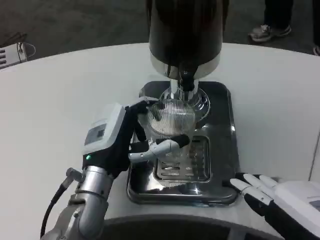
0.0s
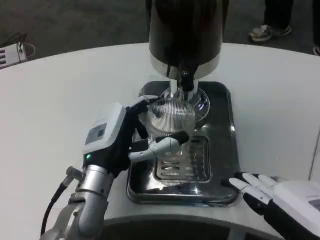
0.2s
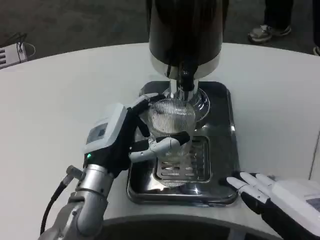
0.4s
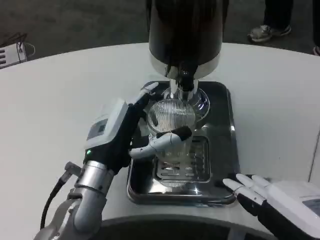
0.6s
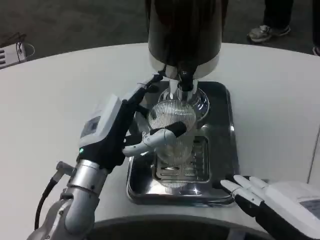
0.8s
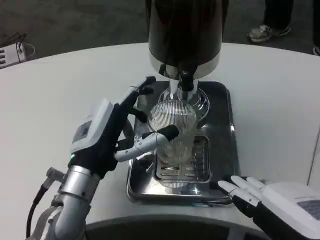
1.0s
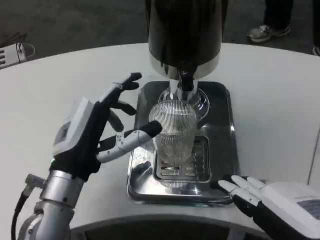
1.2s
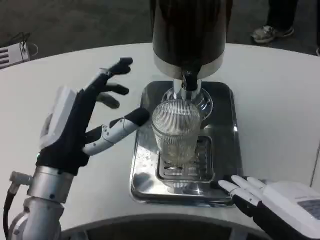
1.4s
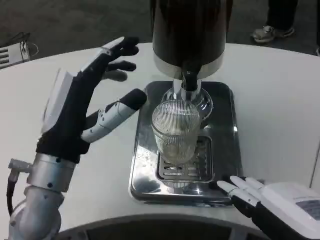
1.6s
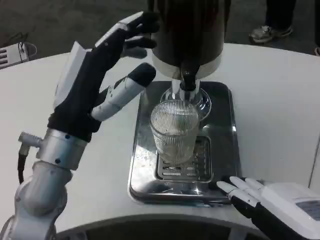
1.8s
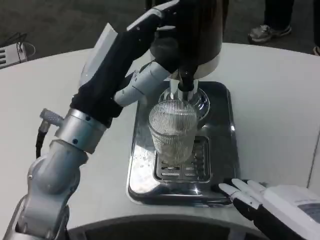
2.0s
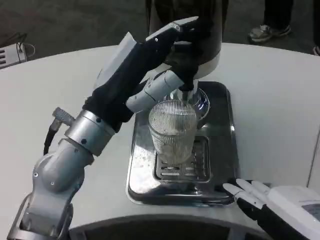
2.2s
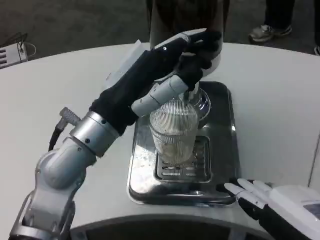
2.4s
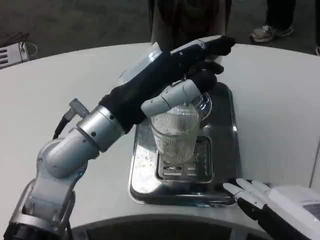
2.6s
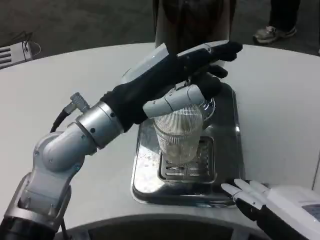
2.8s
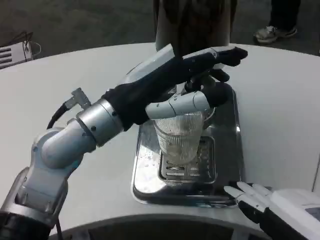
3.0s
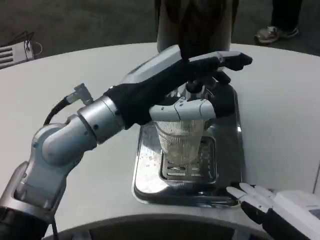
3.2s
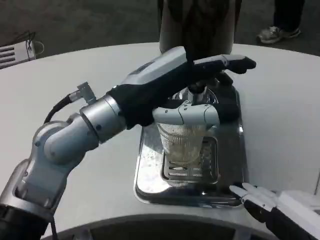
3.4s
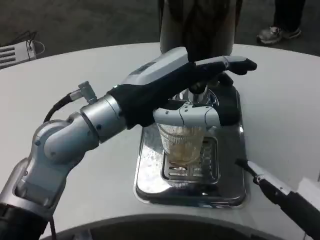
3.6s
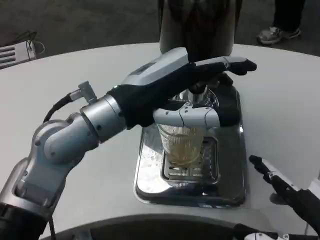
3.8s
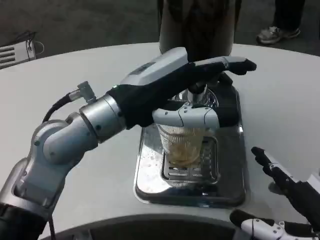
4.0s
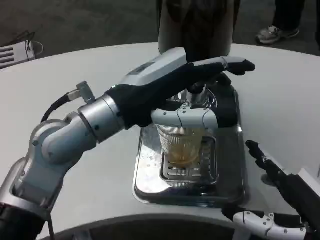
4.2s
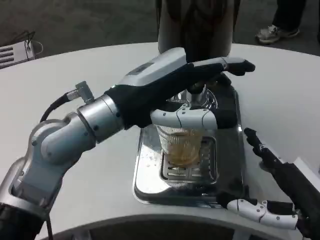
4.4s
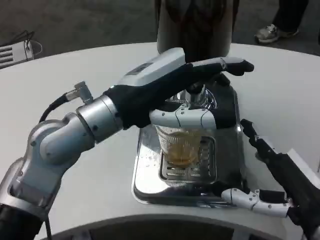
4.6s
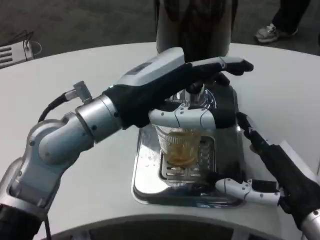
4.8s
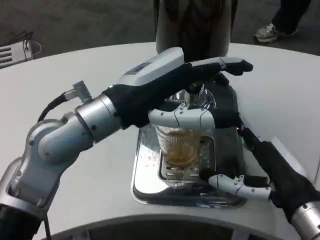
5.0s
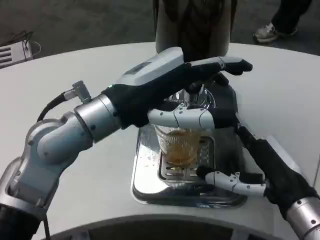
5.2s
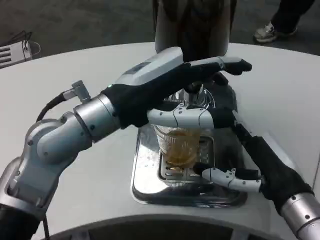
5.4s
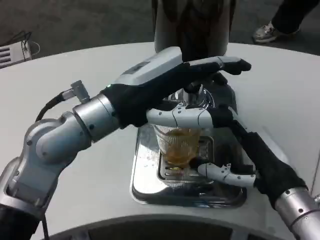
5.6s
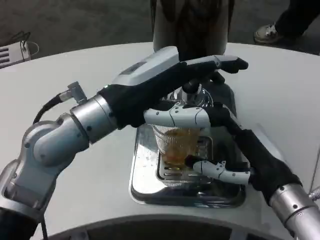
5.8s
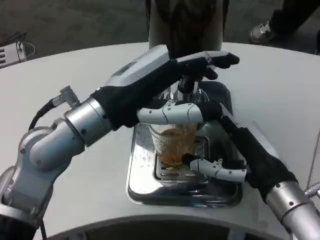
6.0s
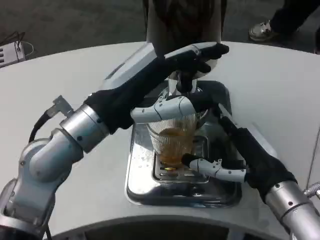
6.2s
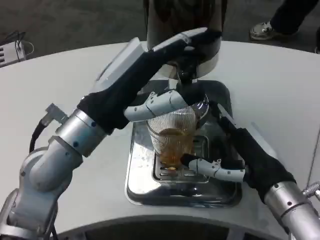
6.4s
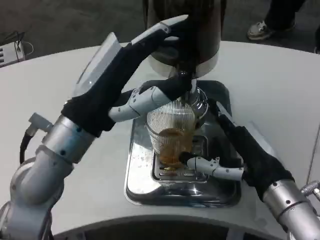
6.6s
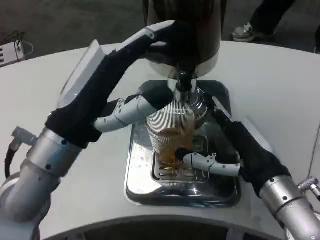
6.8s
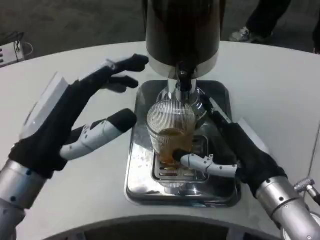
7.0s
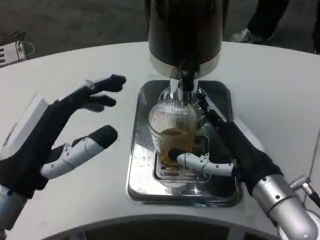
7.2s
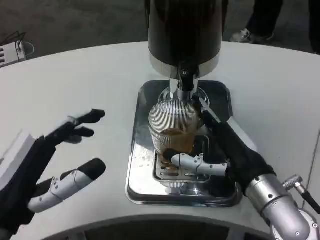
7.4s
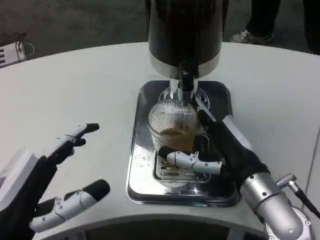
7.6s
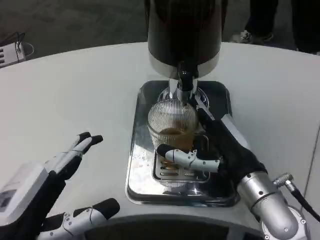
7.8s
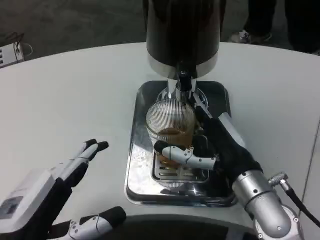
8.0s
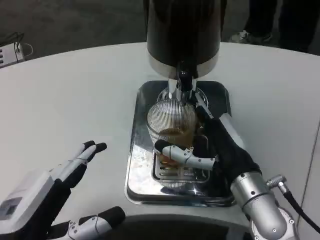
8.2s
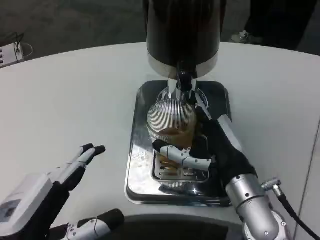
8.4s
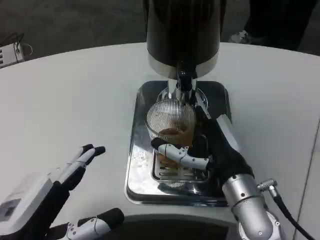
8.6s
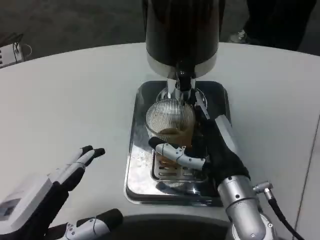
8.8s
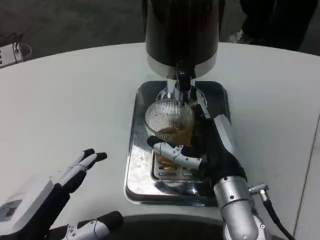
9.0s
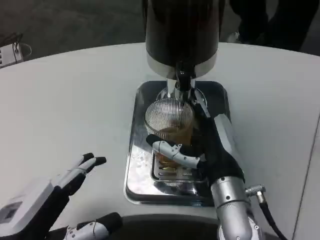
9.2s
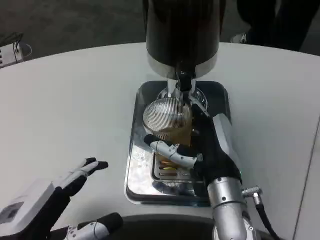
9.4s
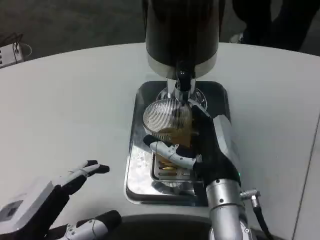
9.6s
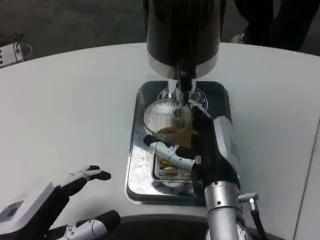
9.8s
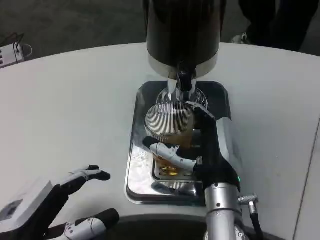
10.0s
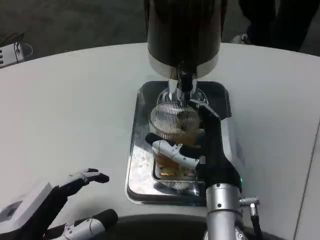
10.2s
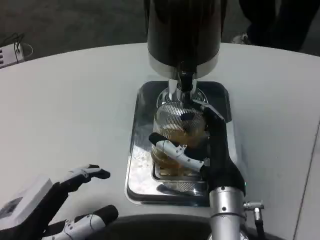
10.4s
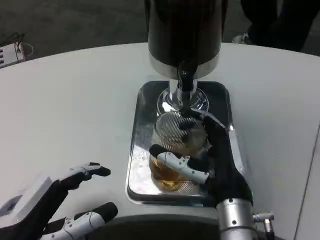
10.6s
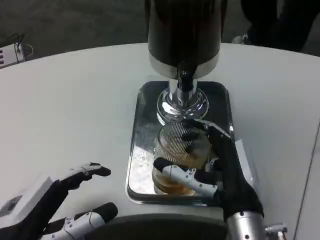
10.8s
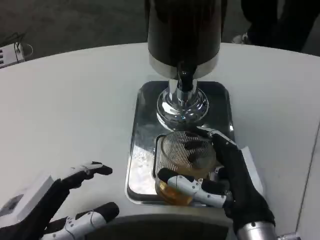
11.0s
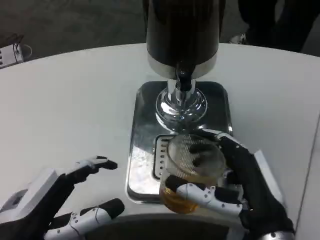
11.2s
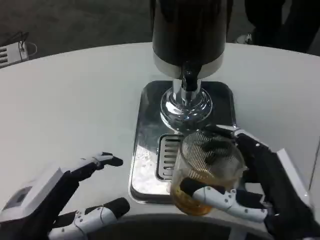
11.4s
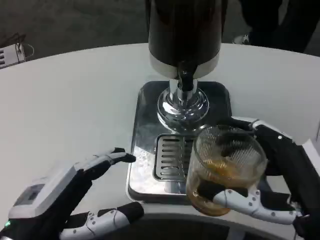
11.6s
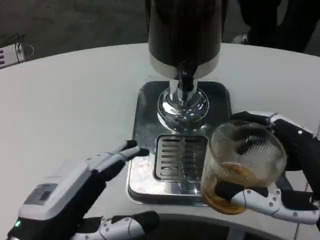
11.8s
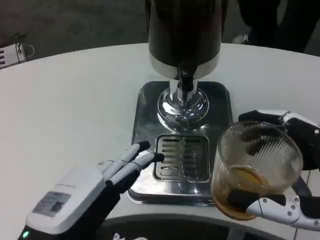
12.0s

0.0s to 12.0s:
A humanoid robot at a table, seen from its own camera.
Task of the whole recording: Grasp the cup under the faucet to collect the drink, then remove the cup.
0.0s to 1.6s: The left hand travels upward by about 5 cm.
1.6s to 3.0s: The left hand heads upward, covering some 5 cm.
3.0s to 4.4s: The right hand moves forward and downward, some 10 cm.
4.4s to 6.0s: The right hand moves forward, approximately 10 cm.
6.0s to 7.6s: The left hand is displaced backward, downward and to the left by some 20 cm.
7.6s to 9.0s: The right hand moves to the left, approximately 5 cm.
9.0s to 10.4s: The hands move only a little.
10.4s to 12.0s: The right hand shifts approximately 20 cm backward and to the right. Meanwhile the left hand ends up roughly 5 cm from where it was.

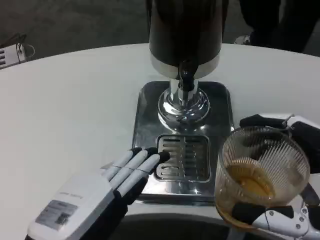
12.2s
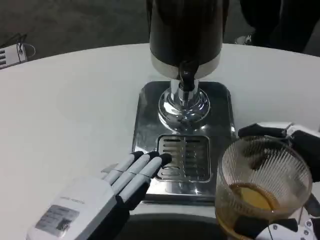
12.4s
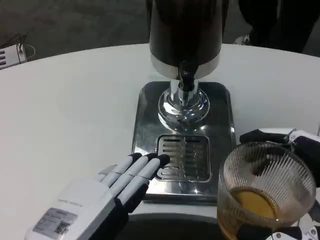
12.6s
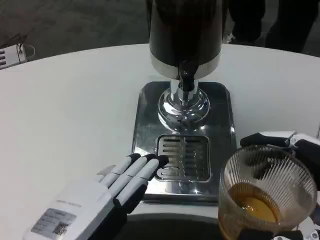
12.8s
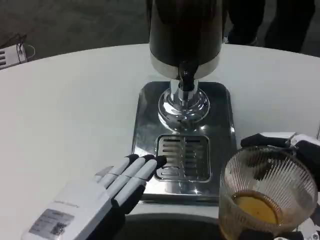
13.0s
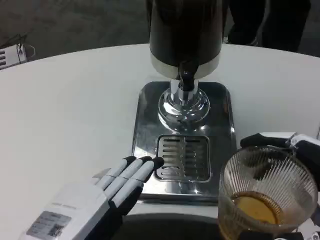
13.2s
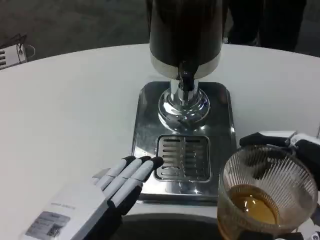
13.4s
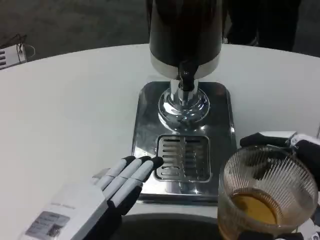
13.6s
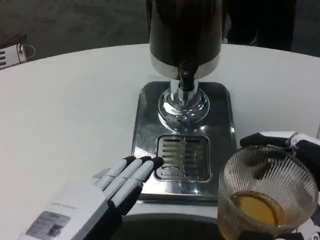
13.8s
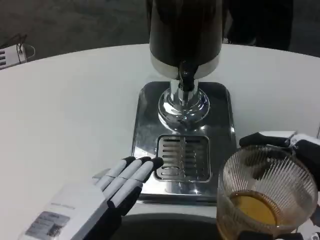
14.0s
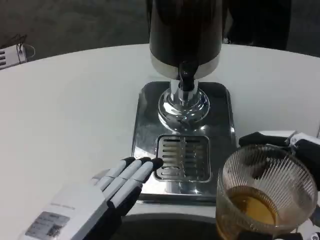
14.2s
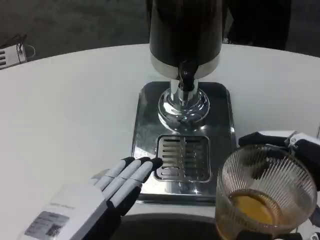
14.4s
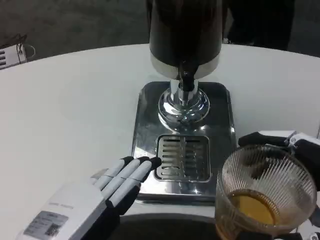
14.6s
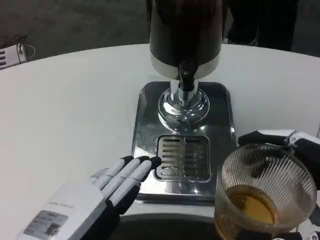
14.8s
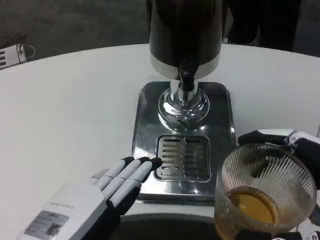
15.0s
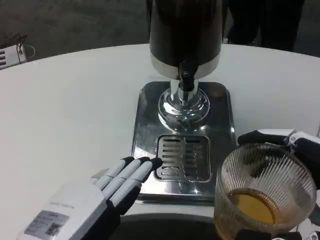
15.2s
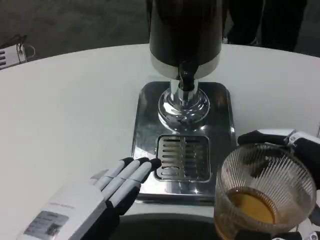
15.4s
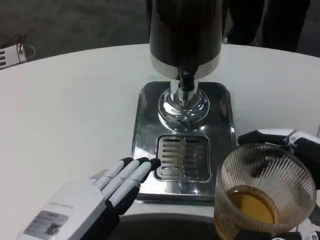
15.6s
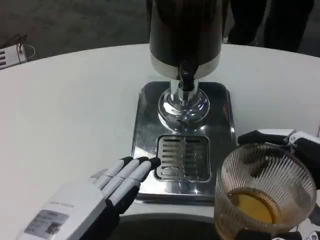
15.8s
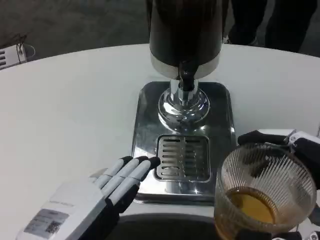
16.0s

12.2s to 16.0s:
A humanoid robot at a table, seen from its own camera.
Task of the whole recording: Grasp the cup under the faucet to collect the drink, then remove the cup.
12.2s to 13.4s: The hands make only small movements.
13.4s to 16.0s: Both hands stay put.

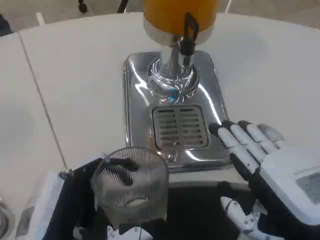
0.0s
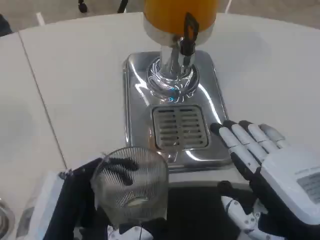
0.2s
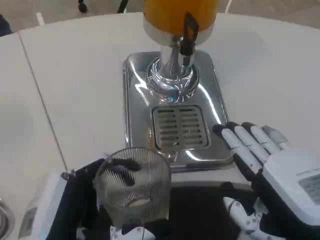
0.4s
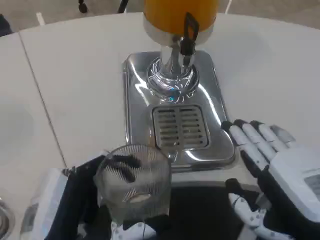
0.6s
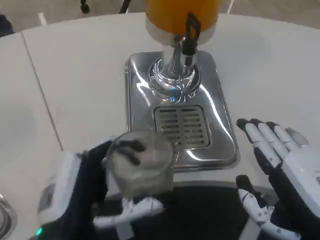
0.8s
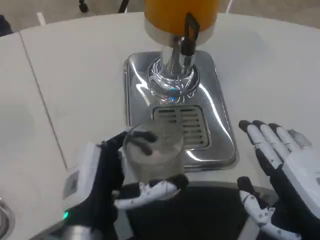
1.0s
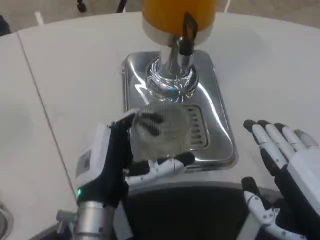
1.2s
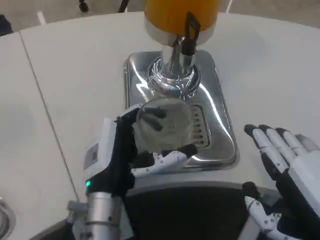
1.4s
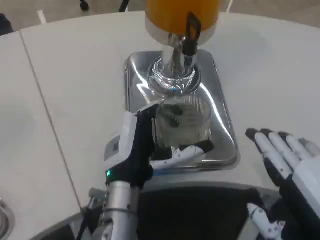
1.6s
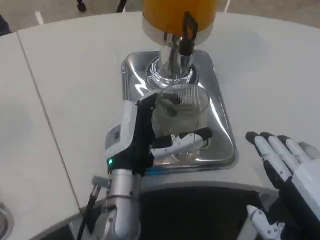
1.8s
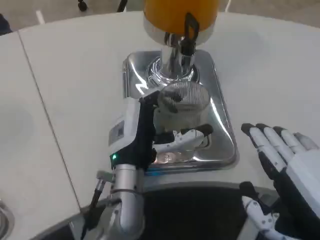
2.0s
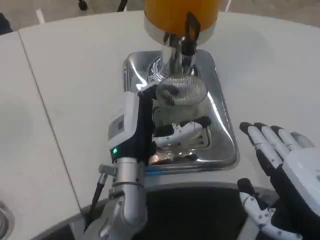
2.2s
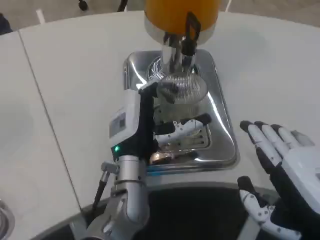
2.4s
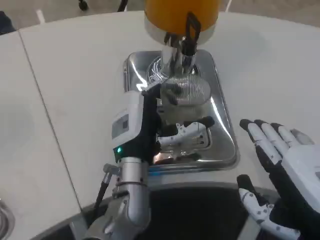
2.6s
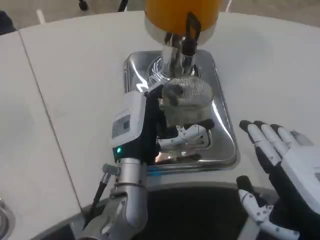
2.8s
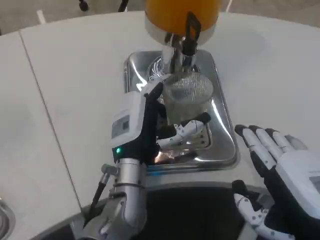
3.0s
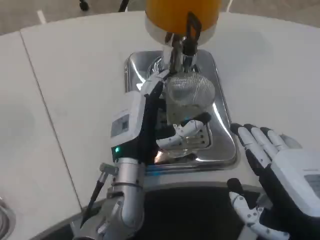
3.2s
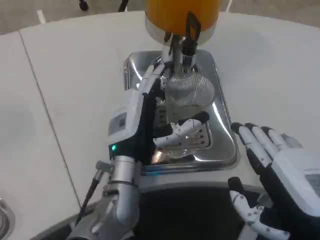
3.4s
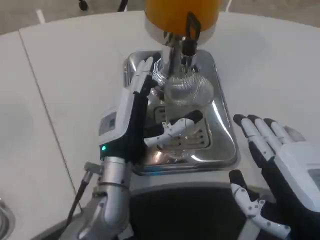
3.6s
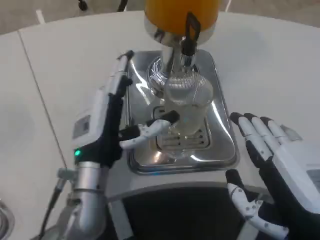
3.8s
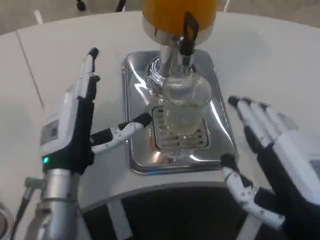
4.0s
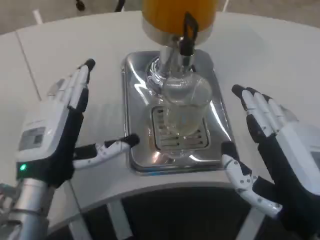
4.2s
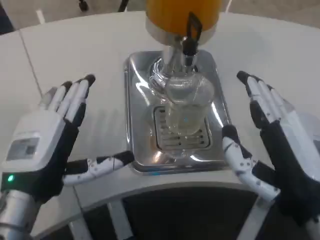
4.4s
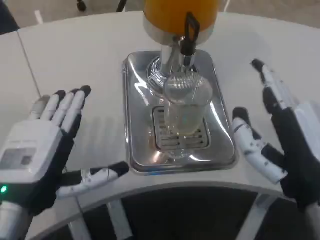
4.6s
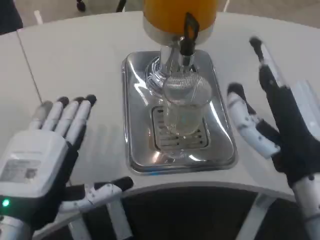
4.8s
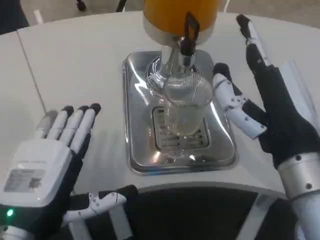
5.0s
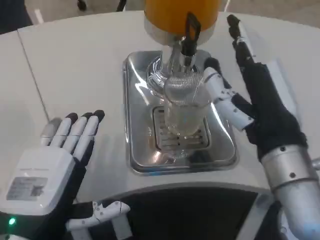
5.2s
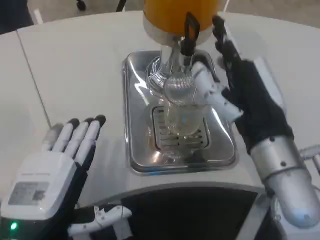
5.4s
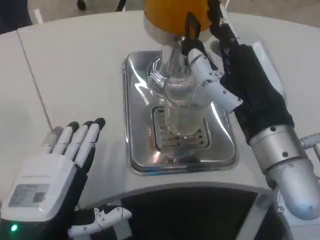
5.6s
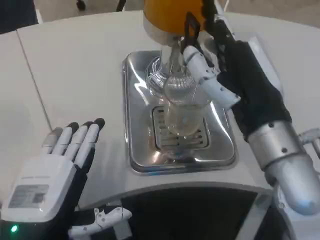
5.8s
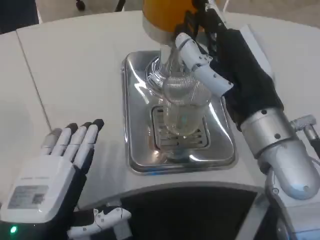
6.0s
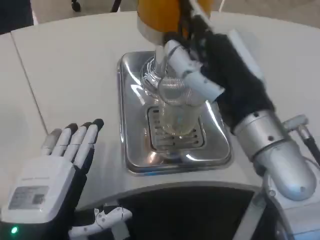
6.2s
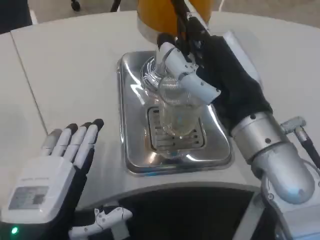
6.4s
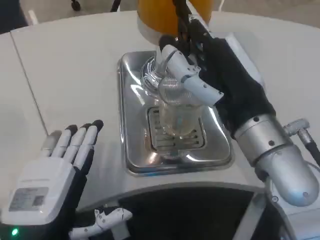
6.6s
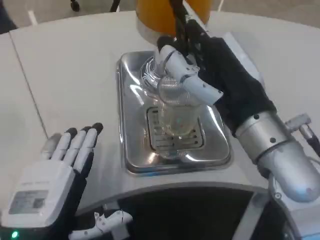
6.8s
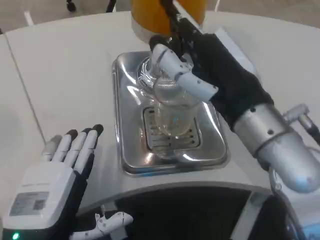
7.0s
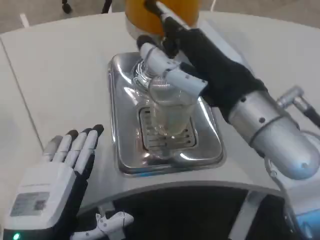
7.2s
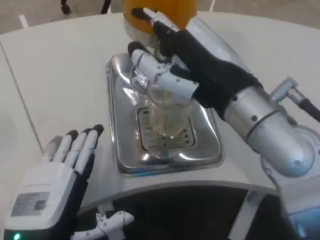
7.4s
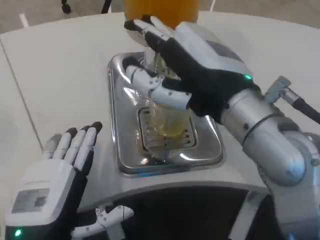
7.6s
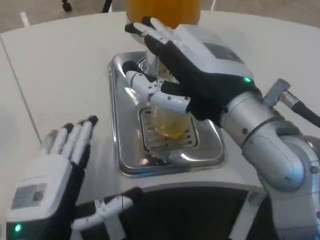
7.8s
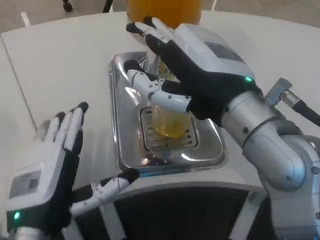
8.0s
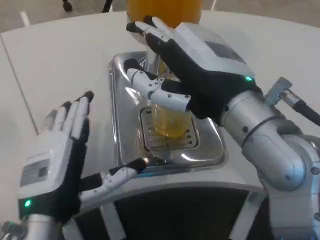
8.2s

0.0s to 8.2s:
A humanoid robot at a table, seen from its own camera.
Task of the whole recording: Grasp the cup under the faucet to collect the drink, then remove the cup.
0.0s to 1.6s: The left hand shifts about 15 cm forward and to the right.
1.6s to 3.2s: The hands move only a little.
3.2s to 5.0s: The right hand shifts roughly 10 cm forward. Meanwhile the left hand is displaced backward and to the left by about 20 cm.
6.6s to 8.2s: The right hand changes place by about 5 cm.
